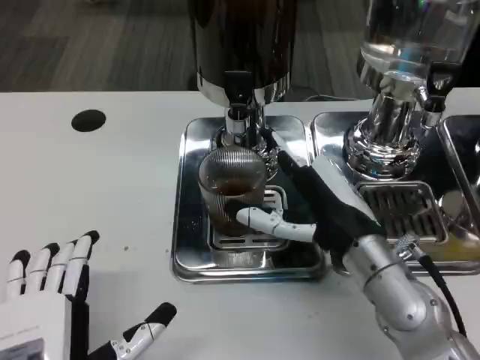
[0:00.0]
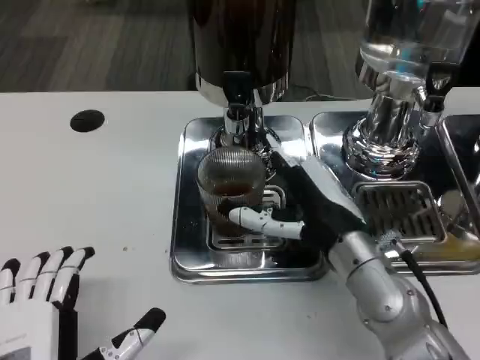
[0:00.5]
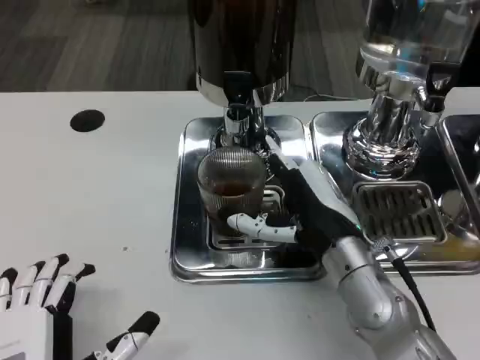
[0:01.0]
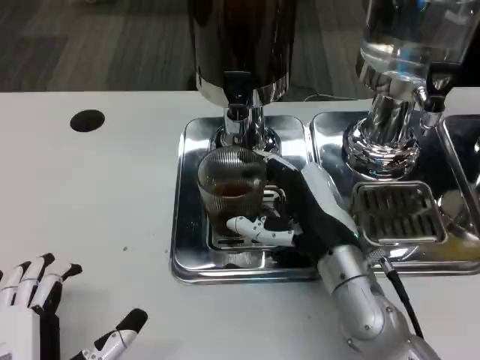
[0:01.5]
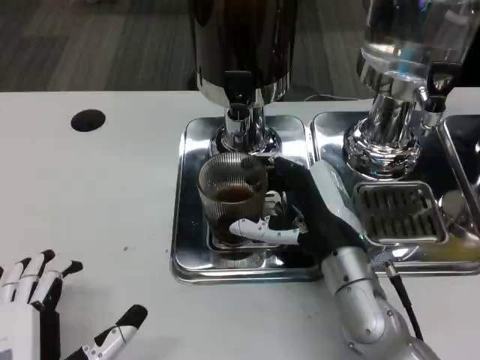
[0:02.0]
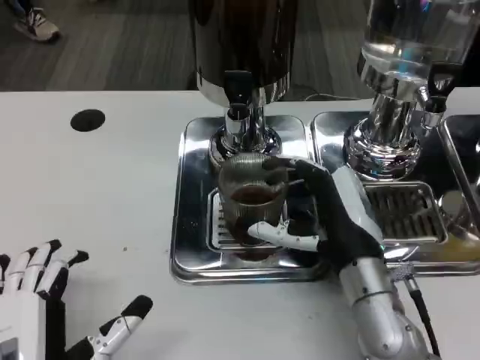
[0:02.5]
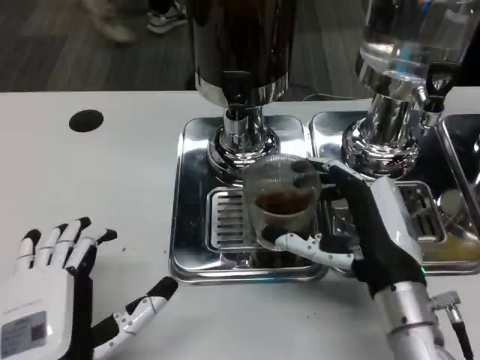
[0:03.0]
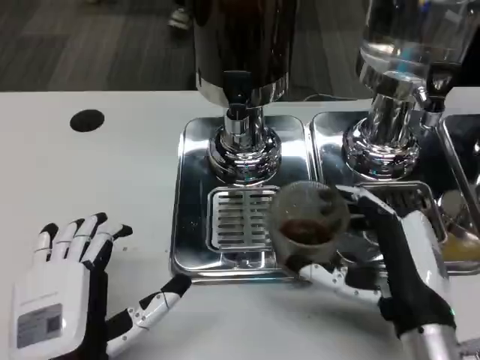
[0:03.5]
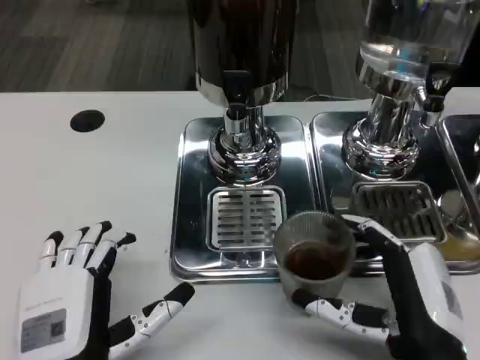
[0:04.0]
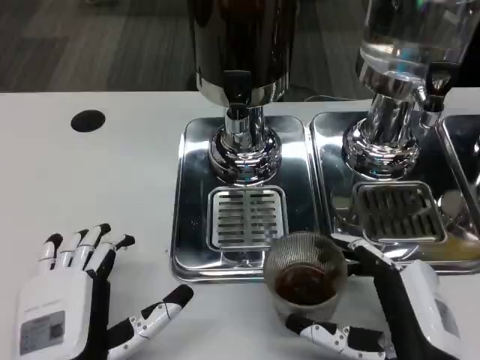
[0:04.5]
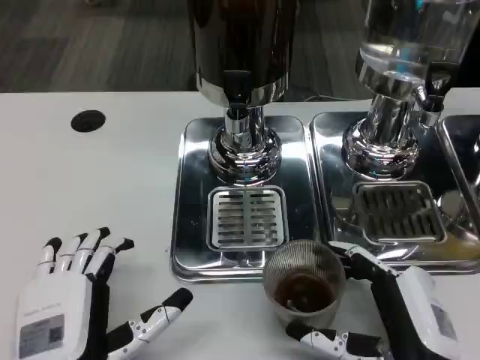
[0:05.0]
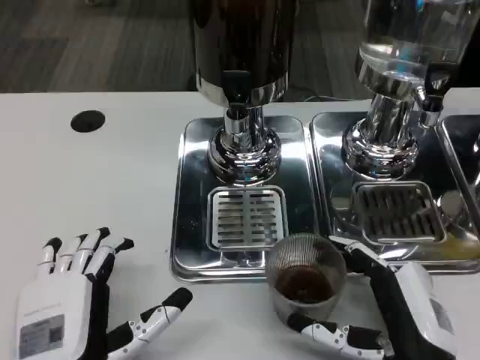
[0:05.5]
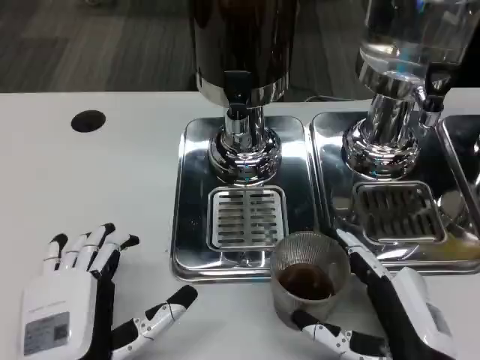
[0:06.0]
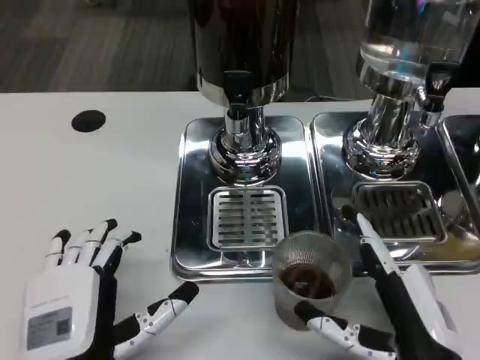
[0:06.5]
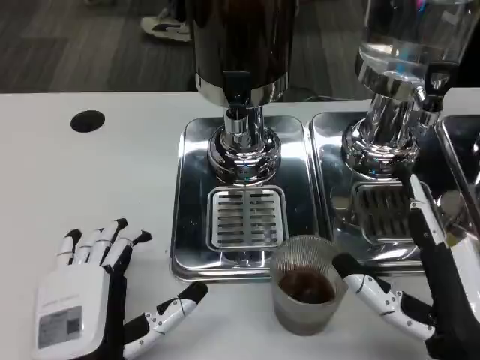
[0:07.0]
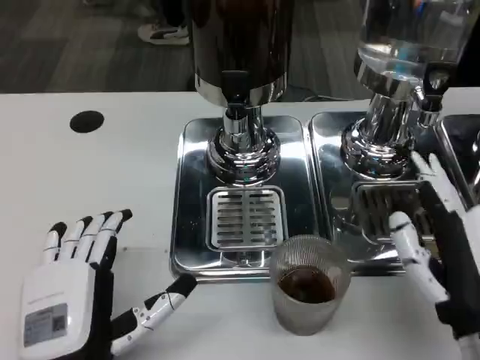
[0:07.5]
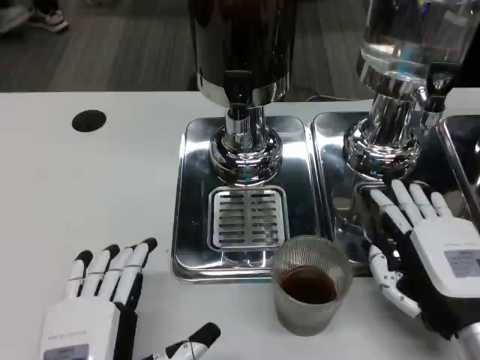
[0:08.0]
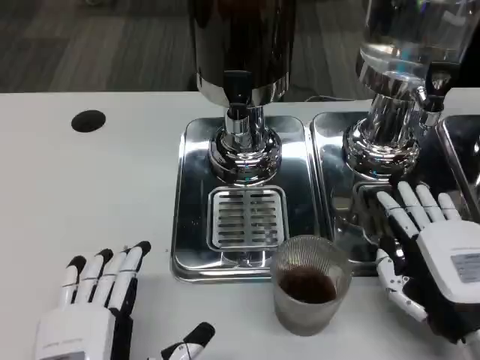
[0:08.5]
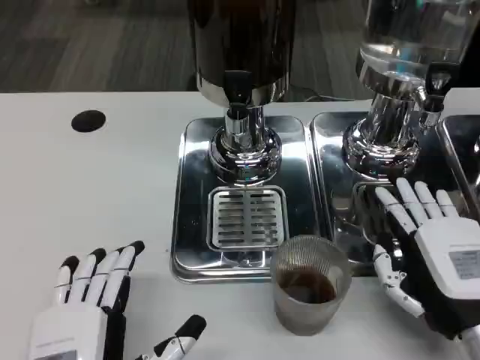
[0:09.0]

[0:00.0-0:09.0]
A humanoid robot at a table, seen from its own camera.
Task of the whole recording: Grasp the cup under the faucet to collect the drink, then remove the cup.
0:00.0 to 0:02.0: The hands stay close to where they were, moving slightly.
0:02.0 to 0:04.5: The right hand heads backward and to the right, covering some 15 cm.
0:04.5 to 0:07.0: The hands move only a little.
0:07.0 to 0:09.0: The right hand changes place by some 5 cm.

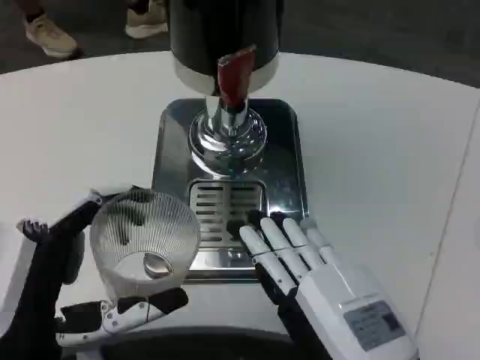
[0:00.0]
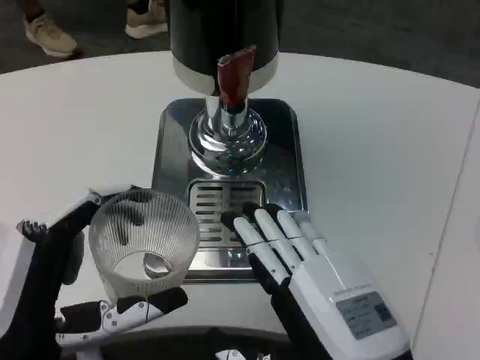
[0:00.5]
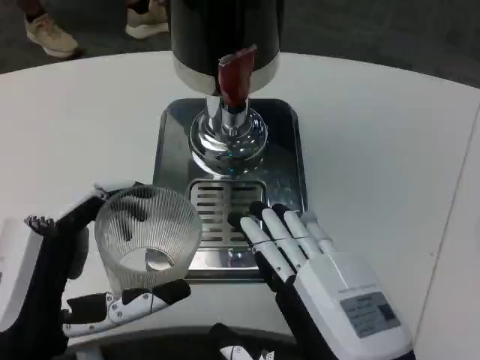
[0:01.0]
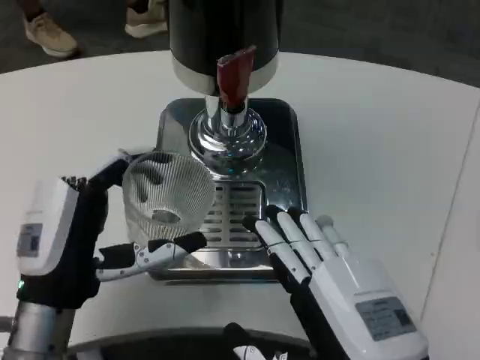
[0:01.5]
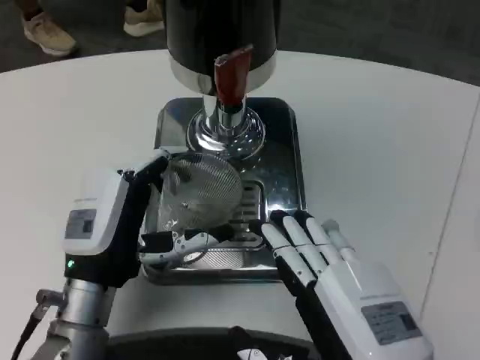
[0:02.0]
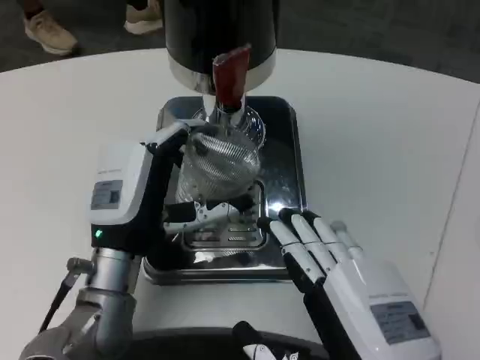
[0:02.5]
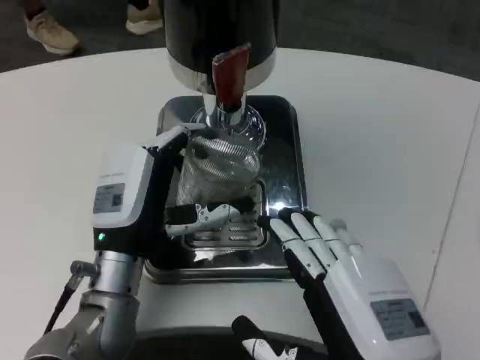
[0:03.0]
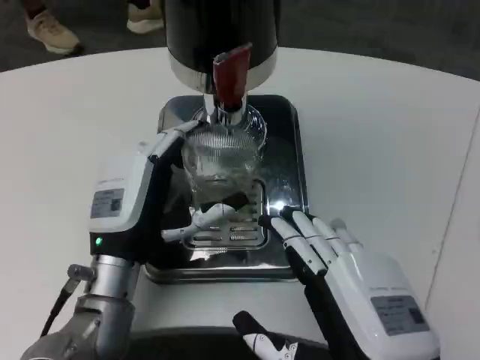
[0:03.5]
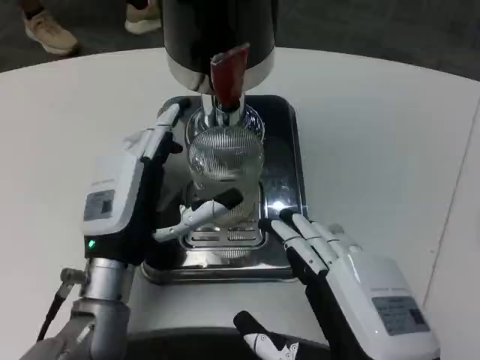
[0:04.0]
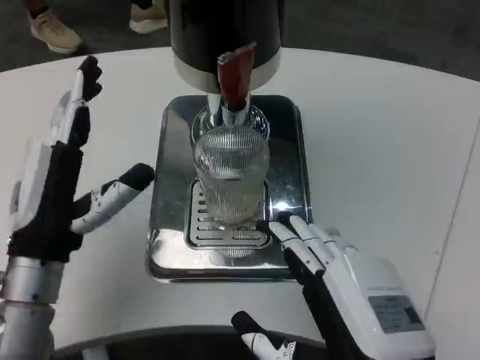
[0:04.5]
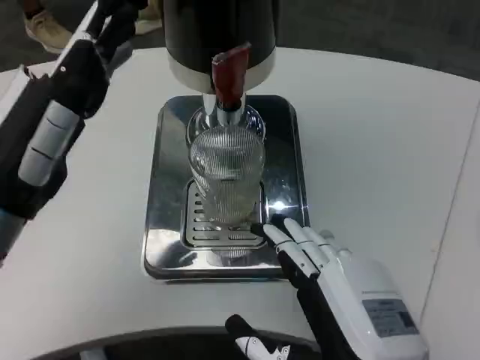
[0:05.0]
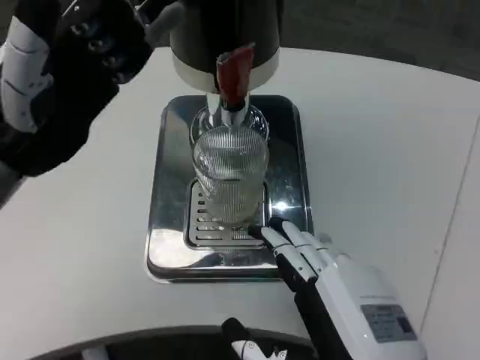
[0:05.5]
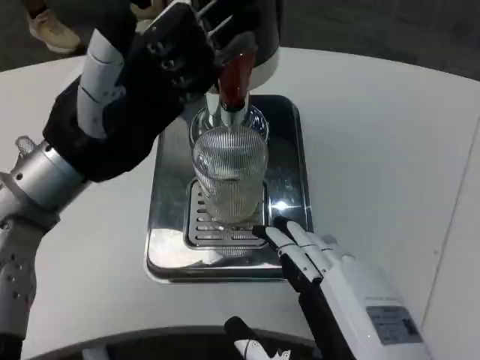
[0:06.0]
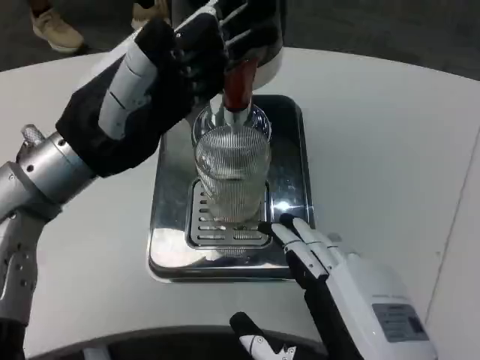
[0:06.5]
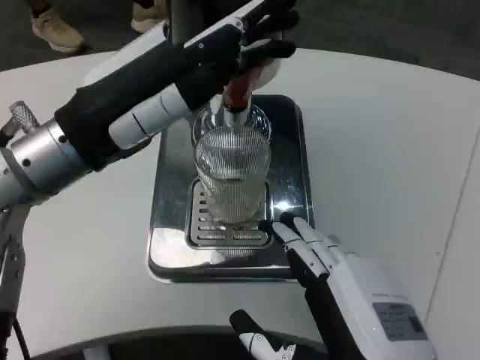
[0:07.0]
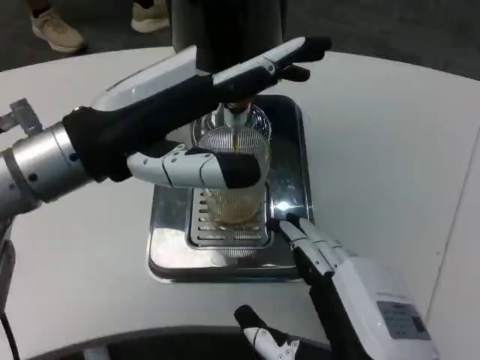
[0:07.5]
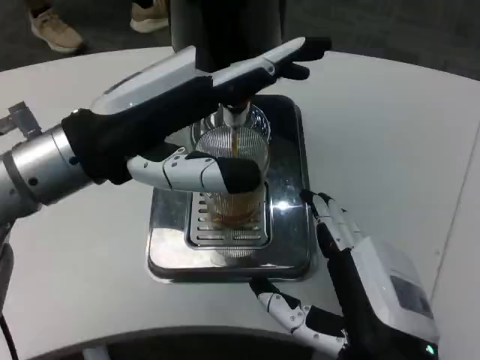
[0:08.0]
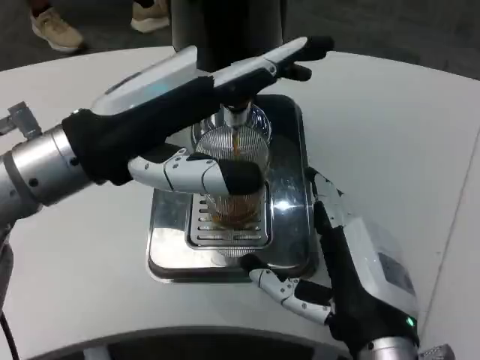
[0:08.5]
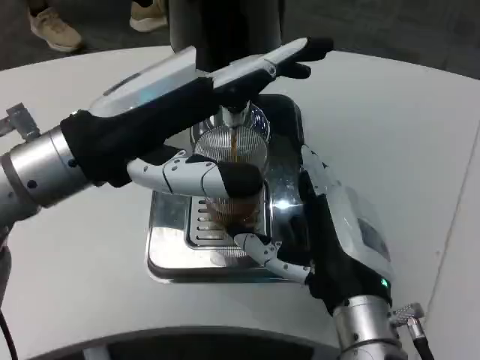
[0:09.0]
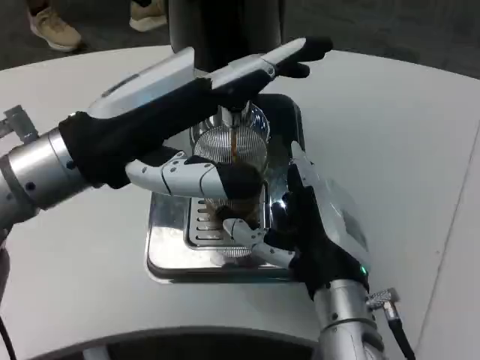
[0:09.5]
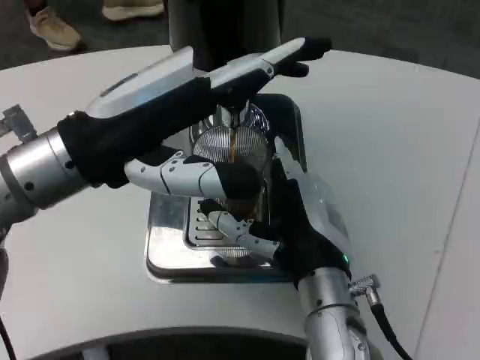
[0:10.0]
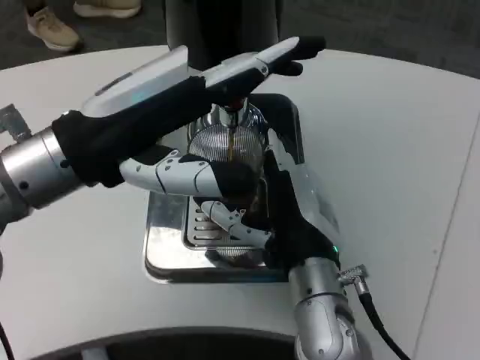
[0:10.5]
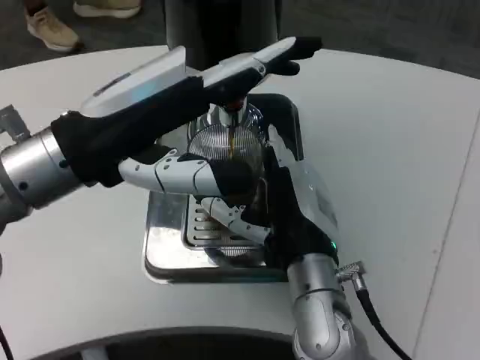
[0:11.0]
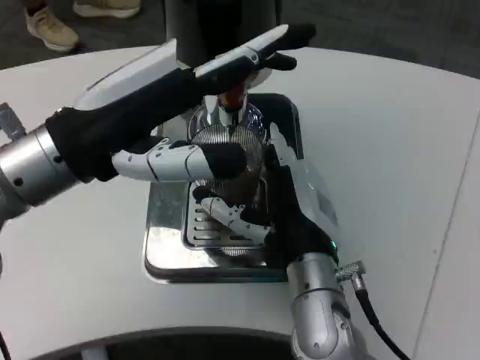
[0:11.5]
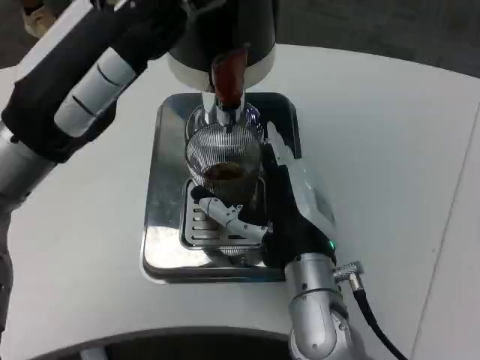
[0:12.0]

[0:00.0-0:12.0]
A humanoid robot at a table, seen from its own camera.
Task of the whole recording: Grasp the cup under the faucet to collect the drink, then remove the cup.
0:00.0 to 0:02.0: The left hand heads forward, covering approximately 10 cm.
0:04.0 to 0:06.0: The left hand heads upward, covering about 15 cm.
0:08.0 to 0:10.0: The right hand goes about 10 cm forward and to the left.

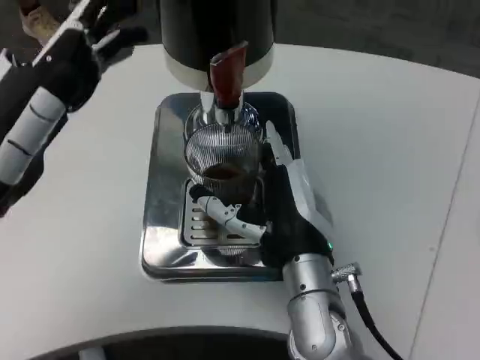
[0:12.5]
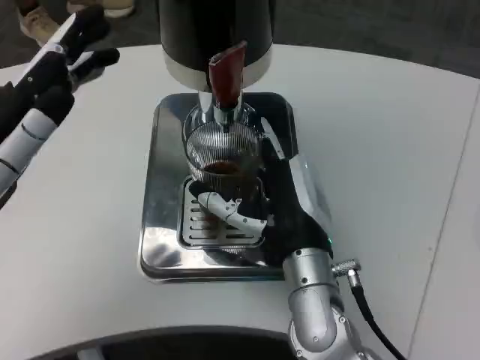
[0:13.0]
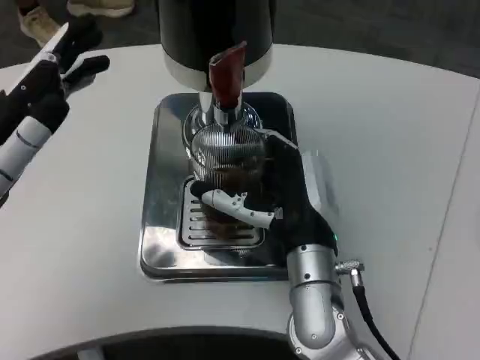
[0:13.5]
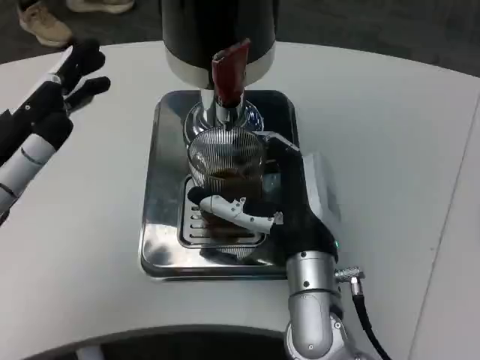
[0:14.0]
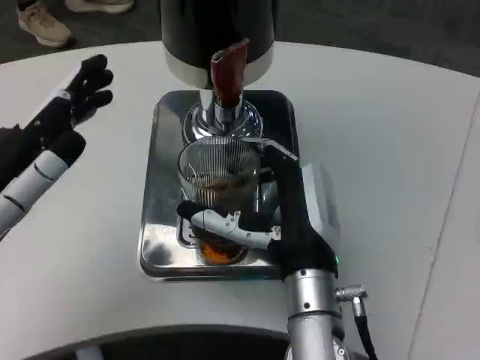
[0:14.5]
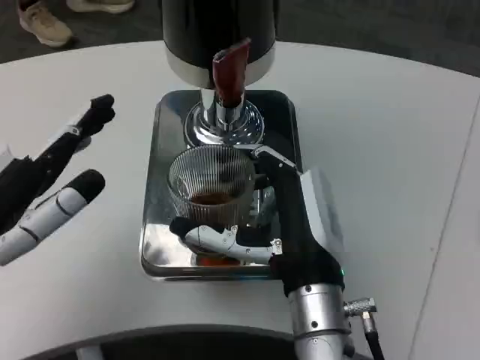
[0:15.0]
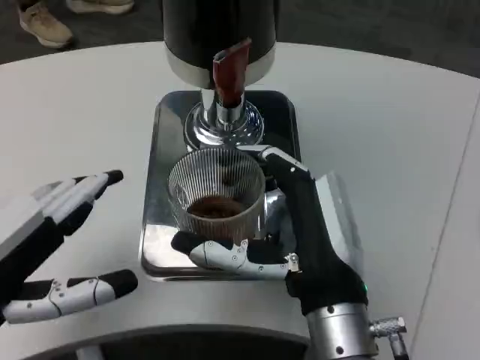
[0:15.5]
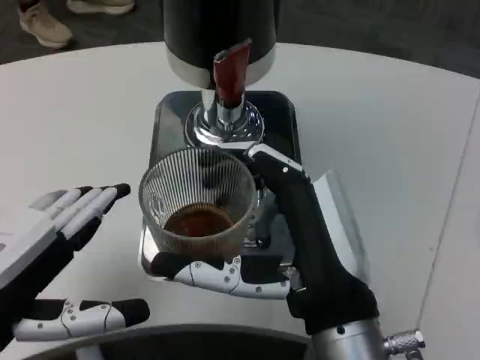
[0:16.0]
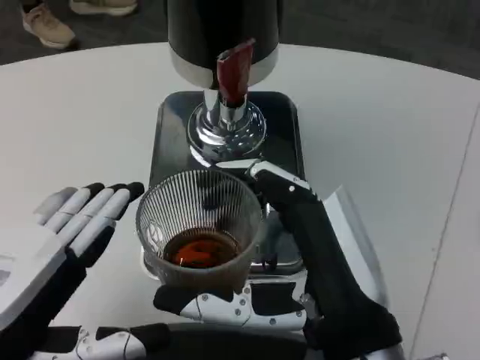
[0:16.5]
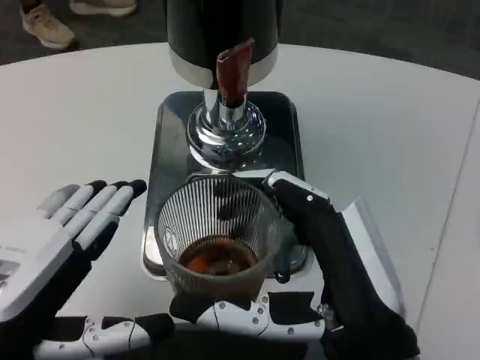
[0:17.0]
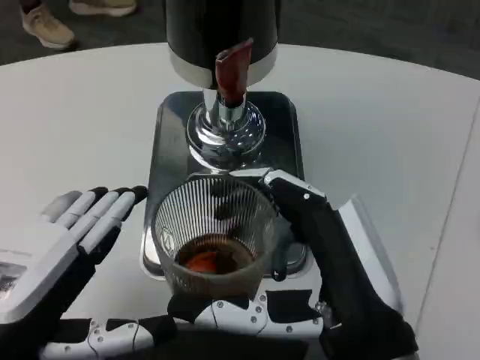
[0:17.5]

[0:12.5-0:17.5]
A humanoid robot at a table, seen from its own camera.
Task of the whole recording: Grasp the cup under the faucet to collect the drink, then remove the cup.
0:12.5 to 0:15.0: The left hand shifts by roughly 5 cm.
0:15.0 to 0:17.5: The left hand moves backward, approximately 5 cm; the right hand is displaced backward by approximately 10 cm.
